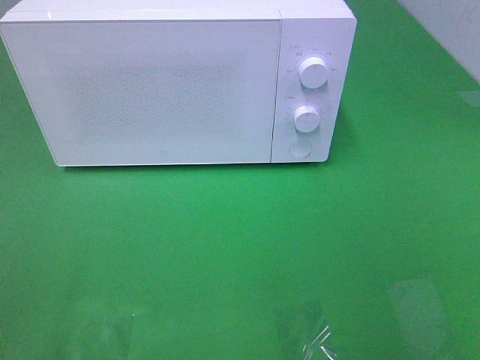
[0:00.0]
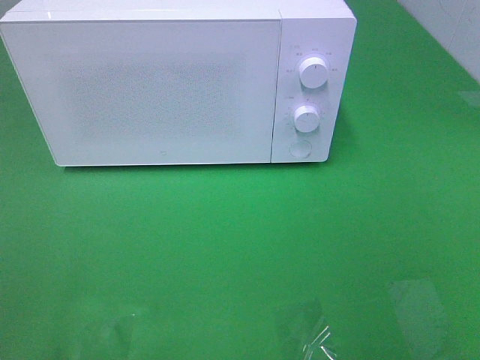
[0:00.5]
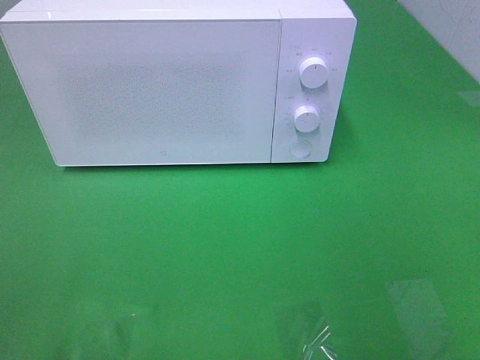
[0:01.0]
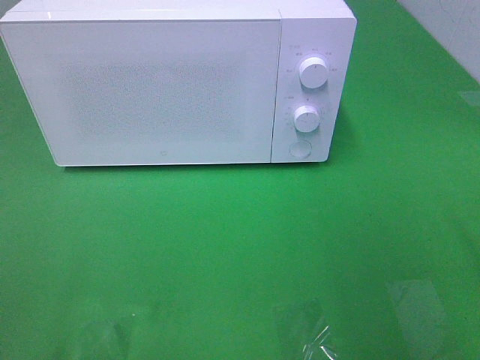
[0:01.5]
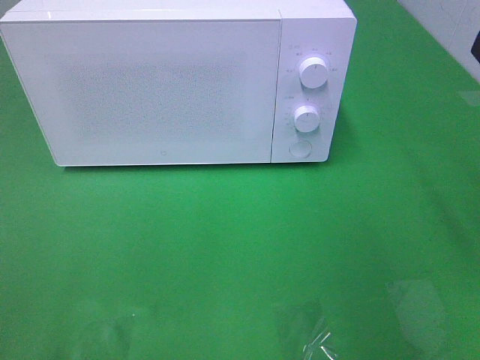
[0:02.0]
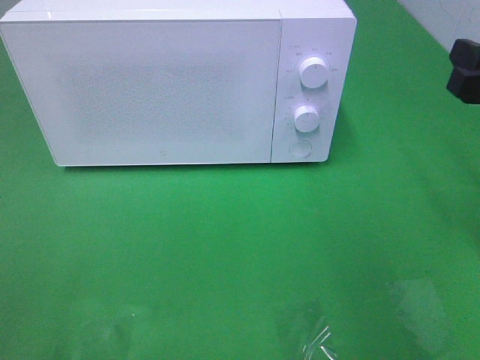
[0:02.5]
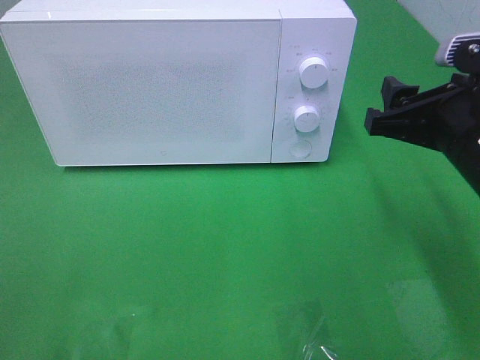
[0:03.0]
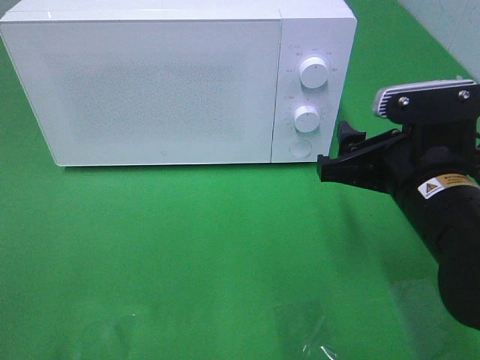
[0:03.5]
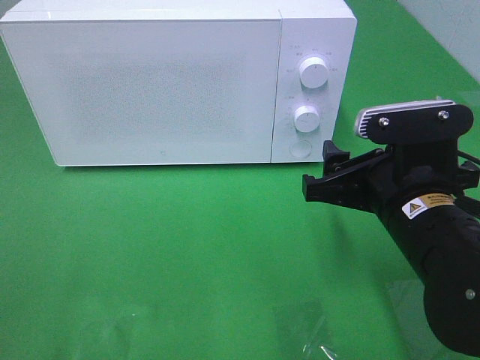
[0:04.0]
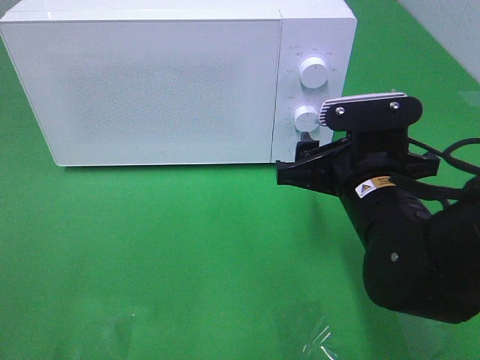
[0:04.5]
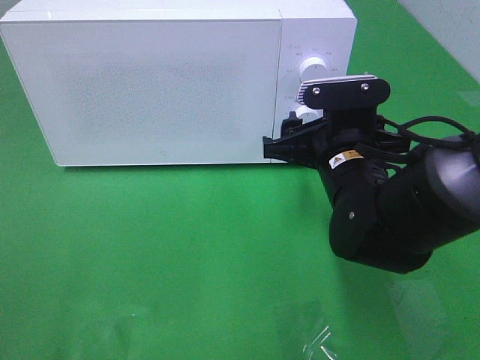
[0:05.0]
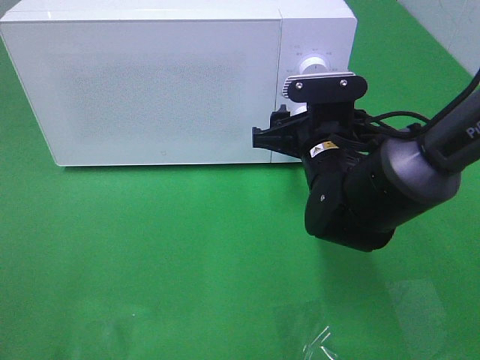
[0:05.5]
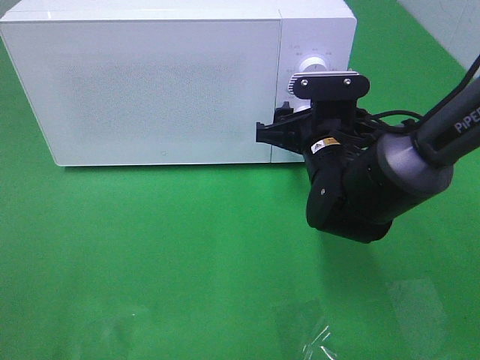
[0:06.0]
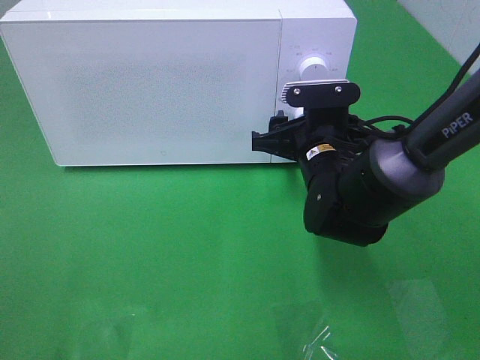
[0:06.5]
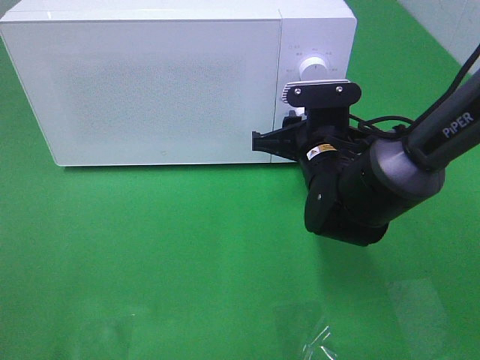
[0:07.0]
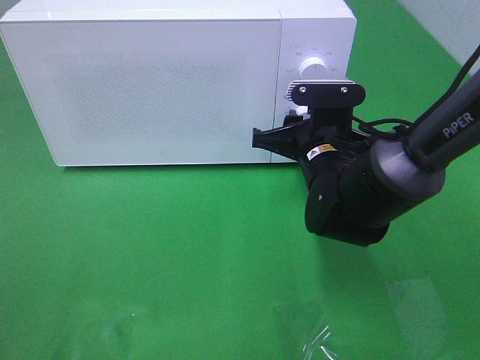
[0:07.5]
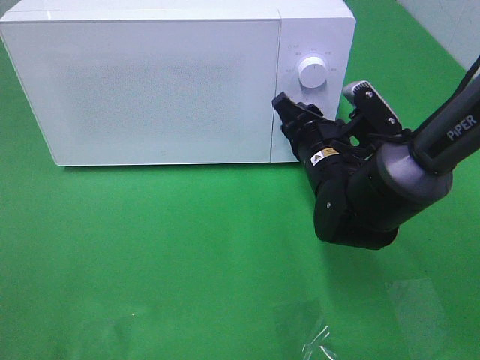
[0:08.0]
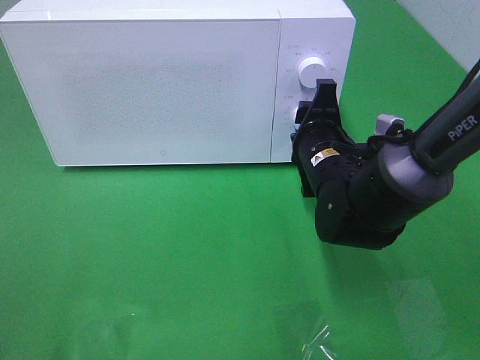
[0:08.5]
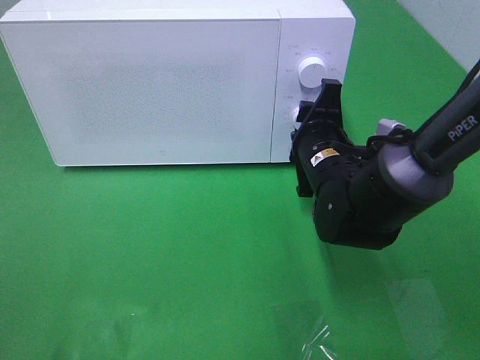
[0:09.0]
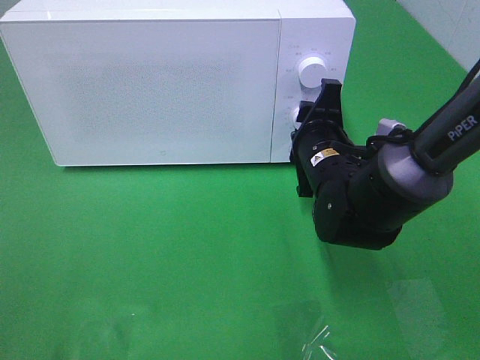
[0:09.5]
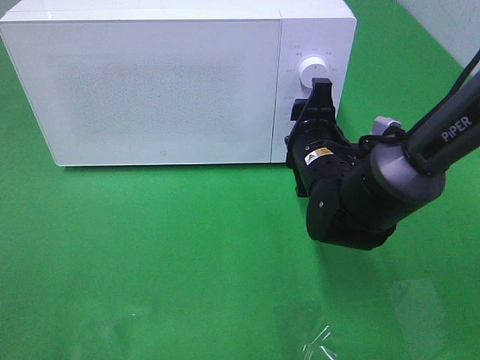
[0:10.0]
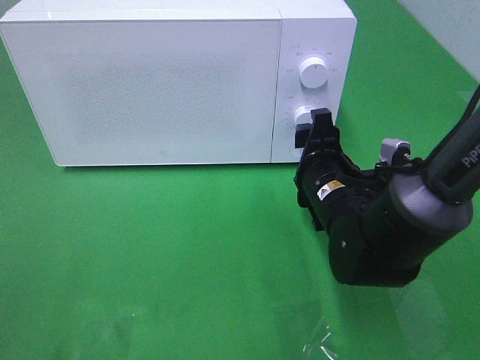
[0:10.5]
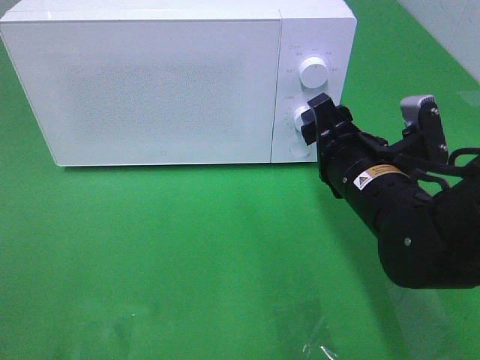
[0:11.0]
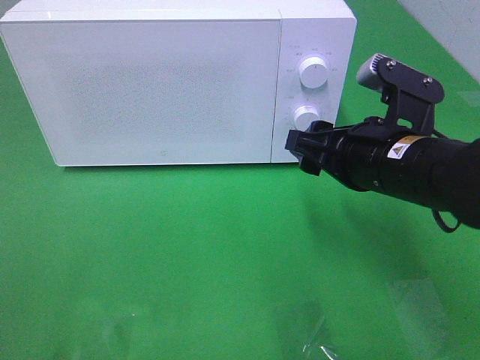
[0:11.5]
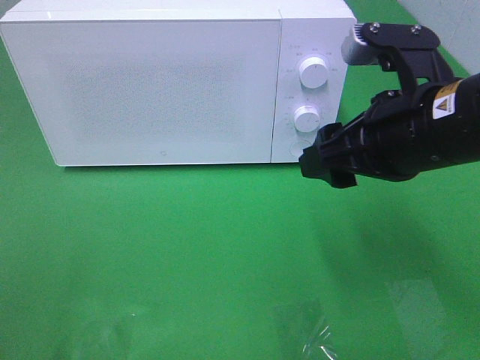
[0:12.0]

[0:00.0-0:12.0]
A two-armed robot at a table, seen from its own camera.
Task of the whole recording: Heat the burger.
Step, 0:00.0 to 0:10.5: Right hand: twist timer button.
0:00.0 to 0:02.0: The right gripper moves forward, about 20 cm.
0:02.0 to 0:04.0: The right gripper is displaced to the left and downward by about 15 cm.
0:04.0 to 0:06.0: The right gripper travels forward by approximately 10 cm.
0:10.0 to 0:12.0: The right gripper moves upward and backward, roughly 15 cm.

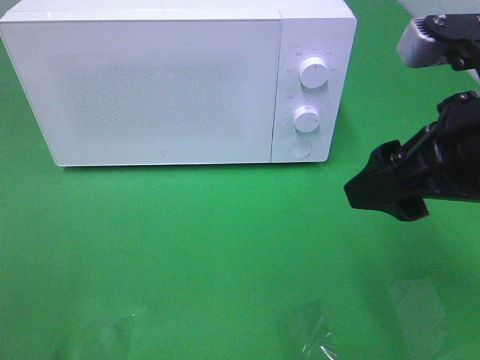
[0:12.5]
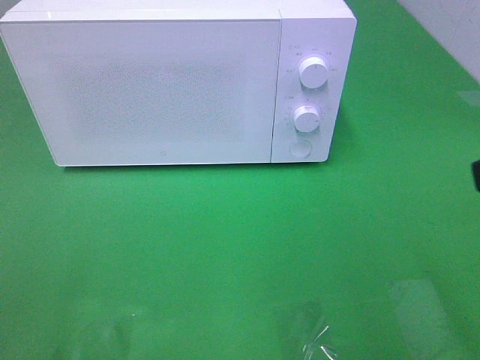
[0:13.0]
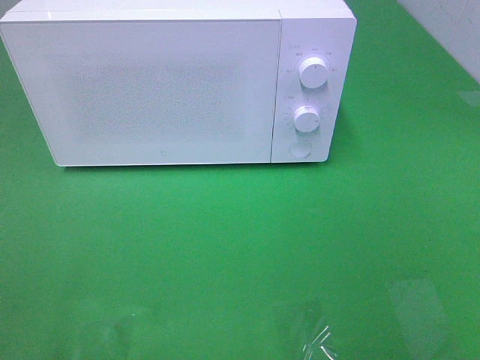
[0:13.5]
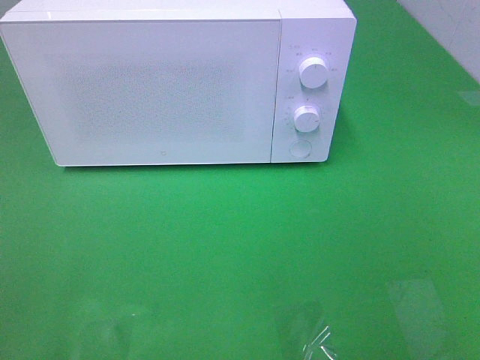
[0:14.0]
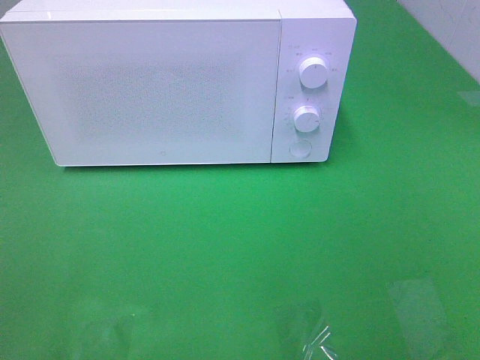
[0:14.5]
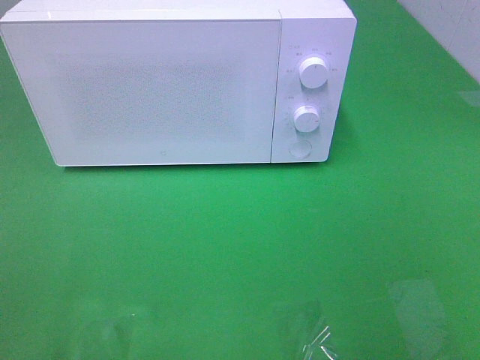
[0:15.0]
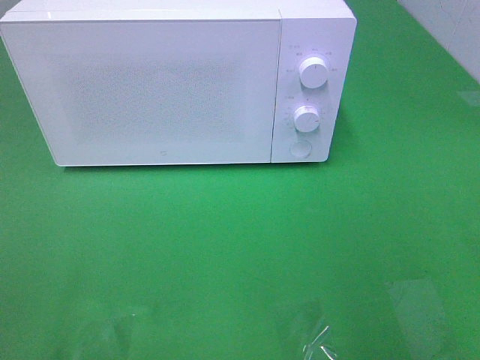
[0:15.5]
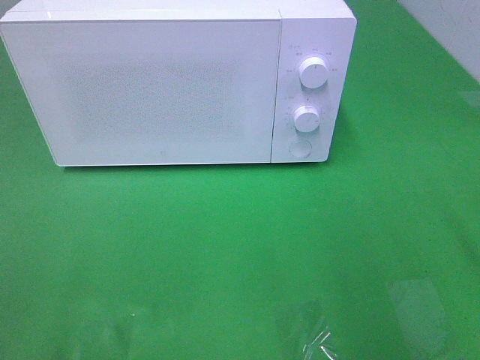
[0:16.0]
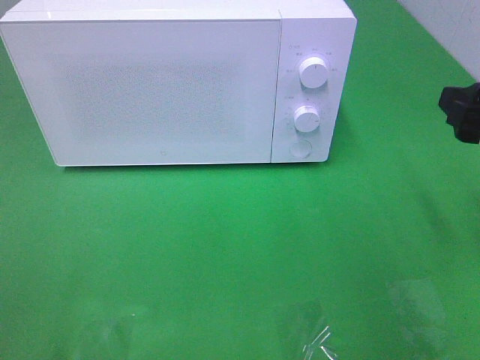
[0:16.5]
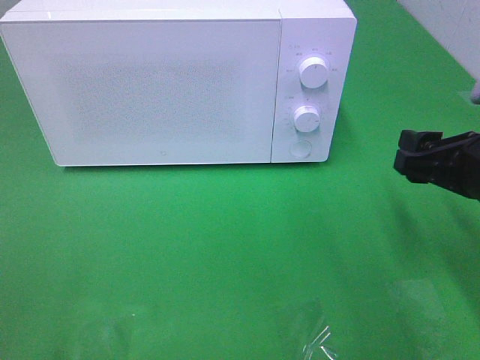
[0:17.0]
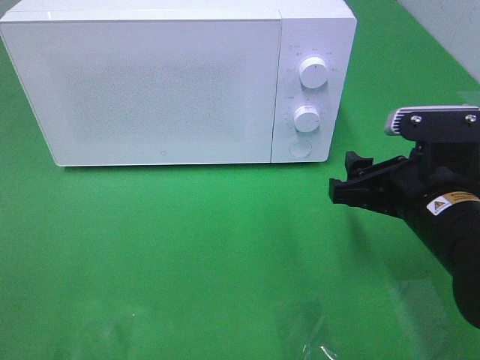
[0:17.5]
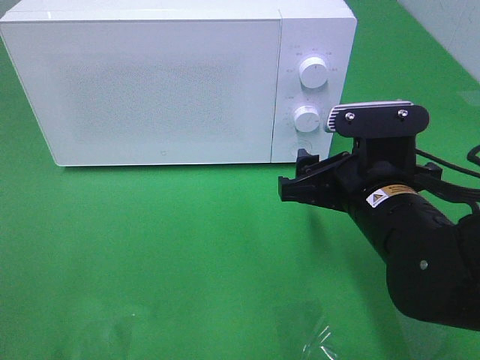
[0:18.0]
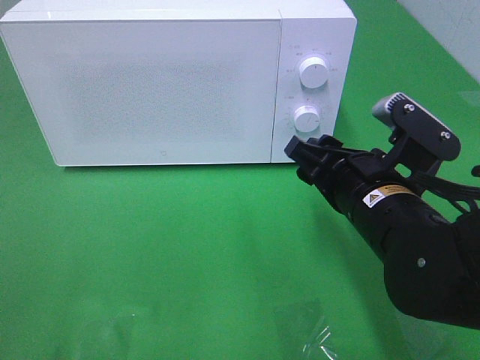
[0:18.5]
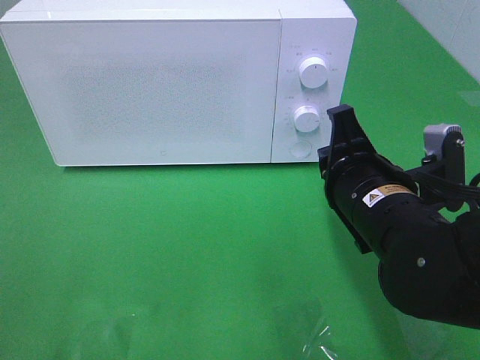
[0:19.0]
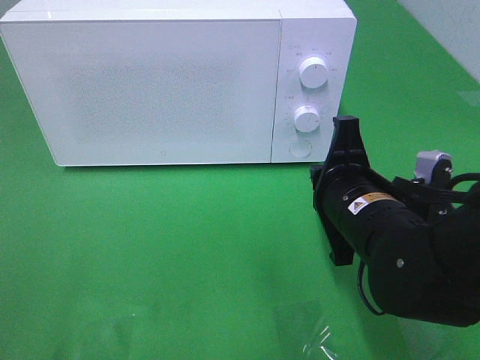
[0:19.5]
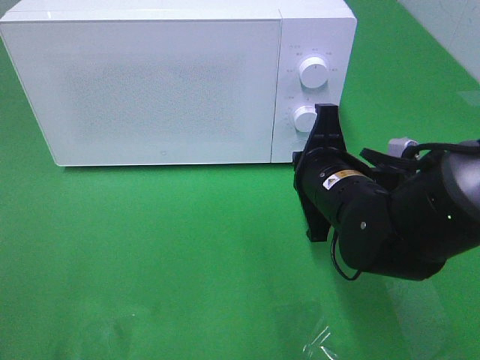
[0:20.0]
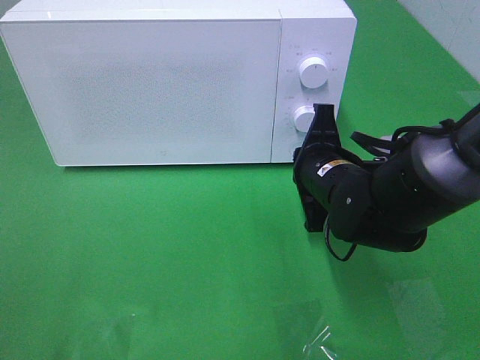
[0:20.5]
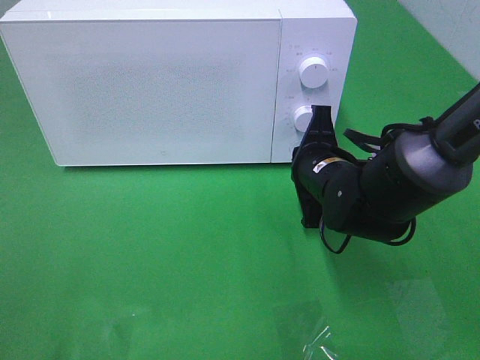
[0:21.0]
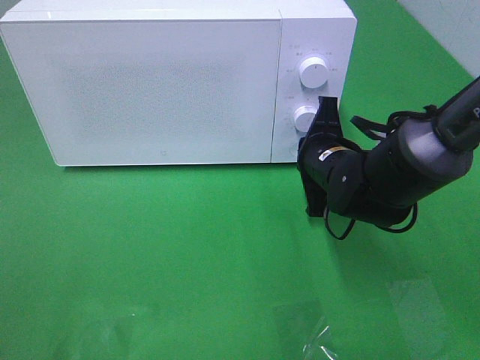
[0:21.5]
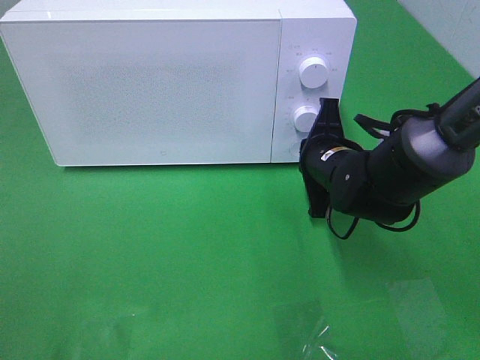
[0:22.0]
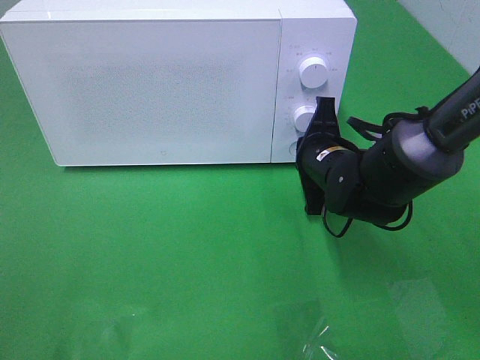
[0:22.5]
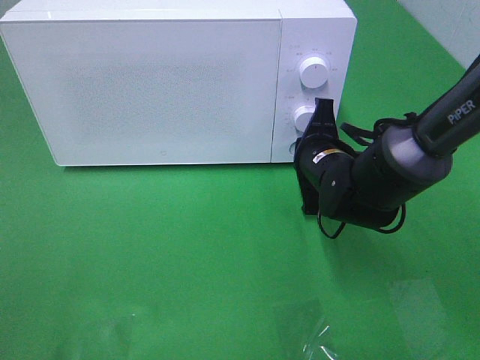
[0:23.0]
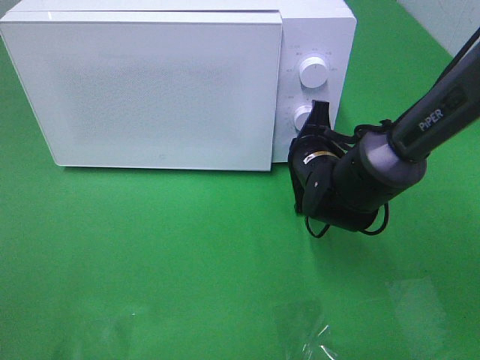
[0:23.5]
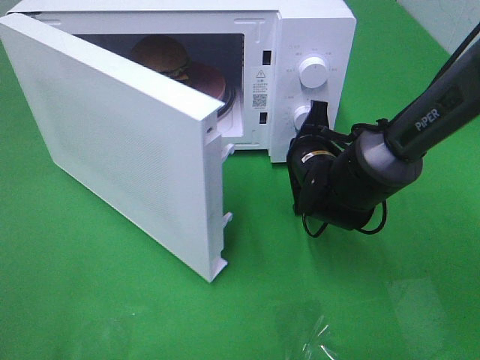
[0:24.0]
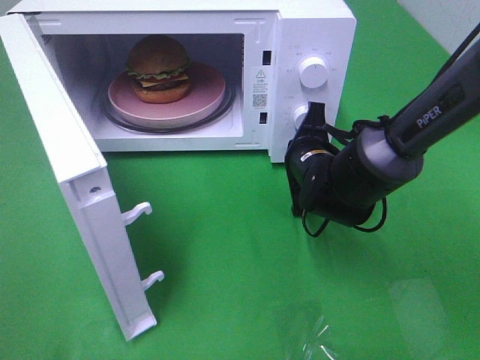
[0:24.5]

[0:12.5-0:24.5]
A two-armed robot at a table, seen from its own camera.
Task of the whole recording: Heat the burger.
0:12.5 to 0:14.5: The right gripper shifts roughly 20 cm backward and to the right.
0:14.5 to 0:16.5: The right gripper travels forward by roughly 20 cm.
0:16.5 to 0:18.5: The right gripper heads to the left and downward, covering some 15 cm.
0:18.5 to 0:20.5: The right gripper heads forward, covering about 10 cm, and closes its fingers.
0:20.5 to 0:22.5: The grippers move only a little.

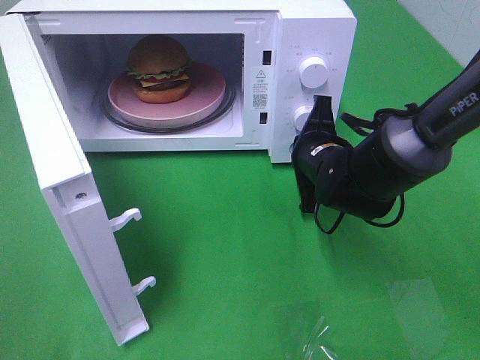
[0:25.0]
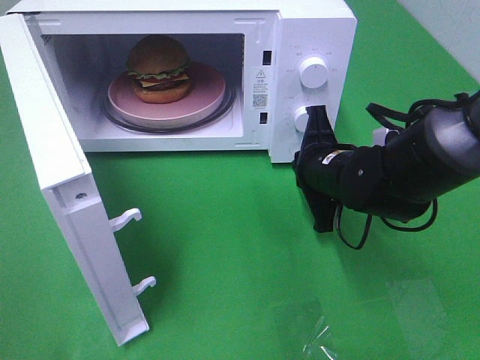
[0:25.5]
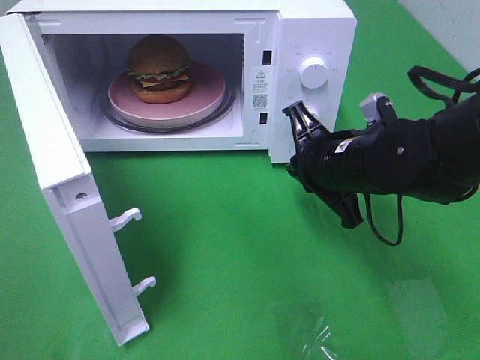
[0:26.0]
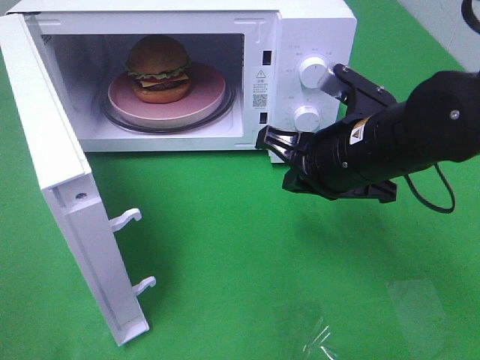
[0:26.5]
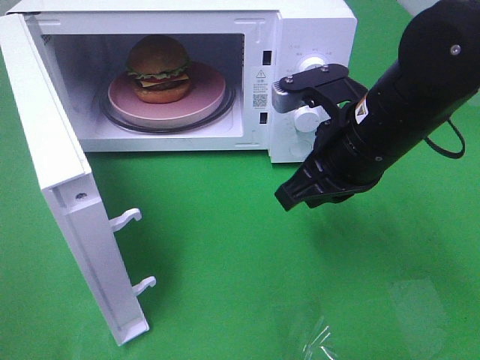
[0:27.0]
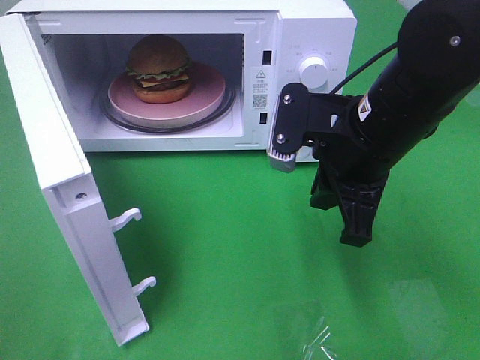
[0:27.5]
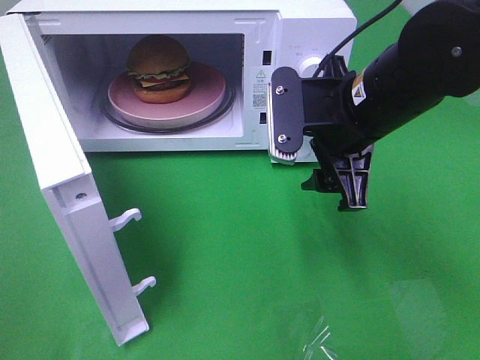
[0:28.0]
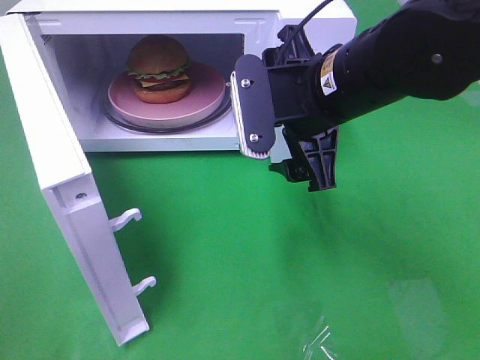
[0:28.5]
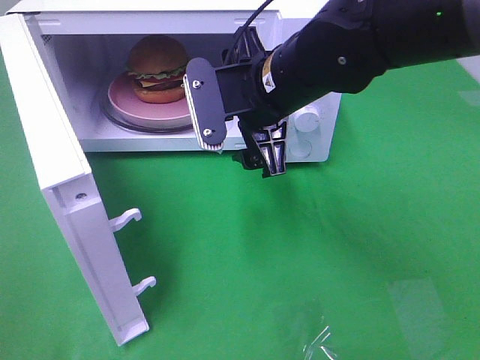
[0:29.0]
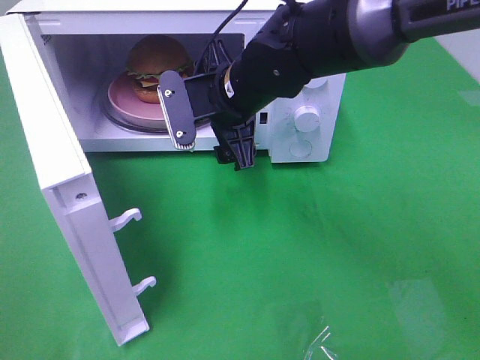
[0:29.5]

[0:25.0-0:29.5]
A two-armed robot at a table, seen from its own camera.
Task of the whole recording: Heat the burger.
0:25.0 to 0:27.0: The right gripper heads upward and backward, covering roughly 15 cm.
0:27.0 to 0:29.5: The right gripper heads to the left and forward, covering approximately 15 cm, and opens up.
